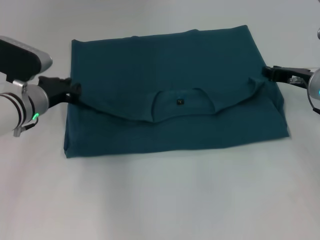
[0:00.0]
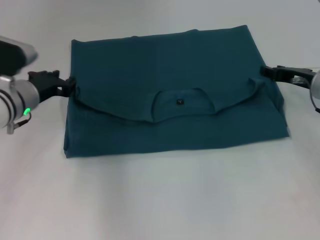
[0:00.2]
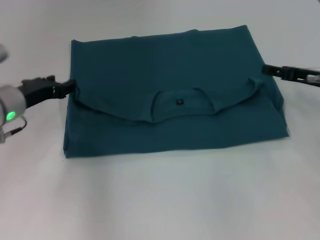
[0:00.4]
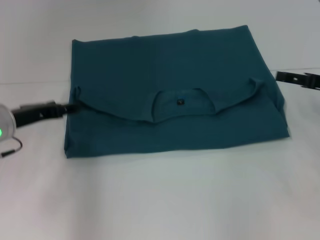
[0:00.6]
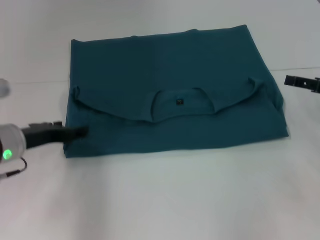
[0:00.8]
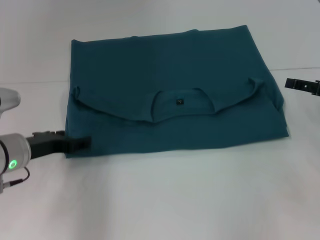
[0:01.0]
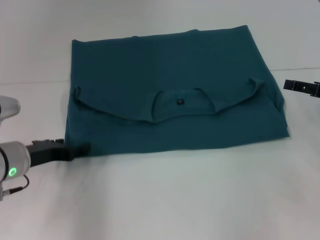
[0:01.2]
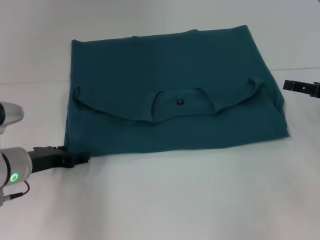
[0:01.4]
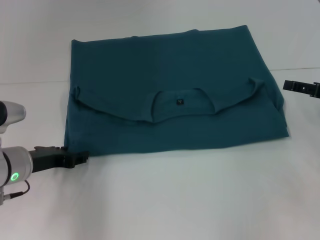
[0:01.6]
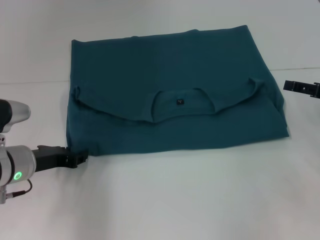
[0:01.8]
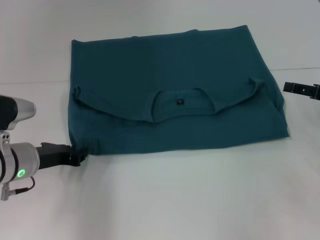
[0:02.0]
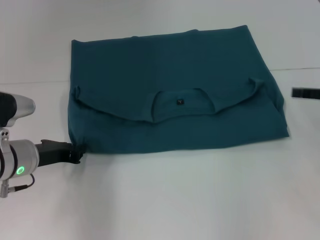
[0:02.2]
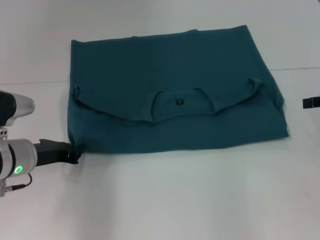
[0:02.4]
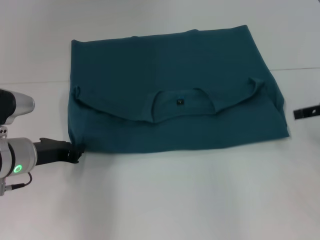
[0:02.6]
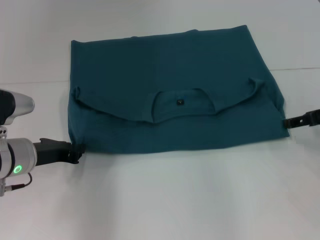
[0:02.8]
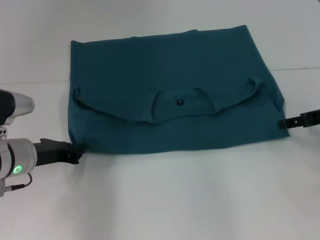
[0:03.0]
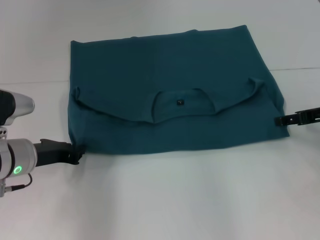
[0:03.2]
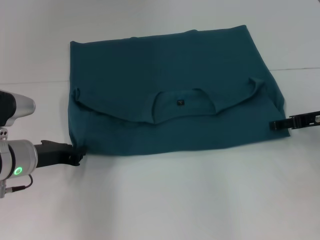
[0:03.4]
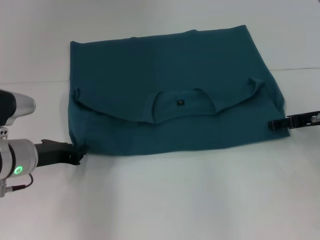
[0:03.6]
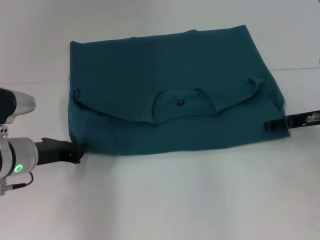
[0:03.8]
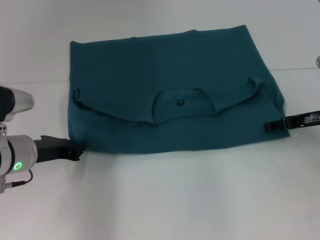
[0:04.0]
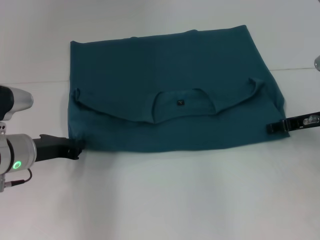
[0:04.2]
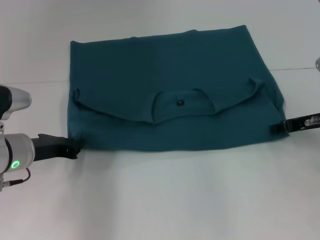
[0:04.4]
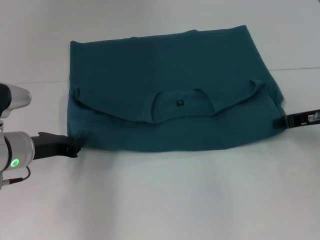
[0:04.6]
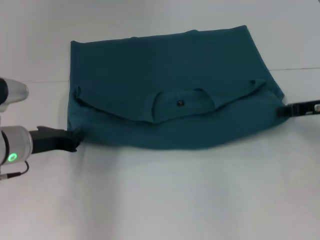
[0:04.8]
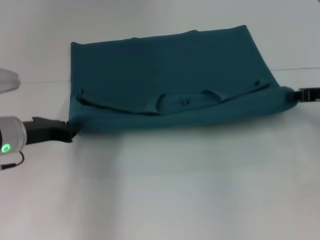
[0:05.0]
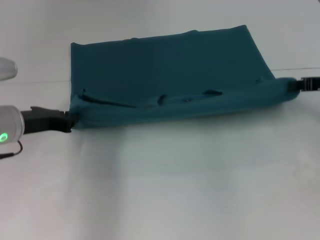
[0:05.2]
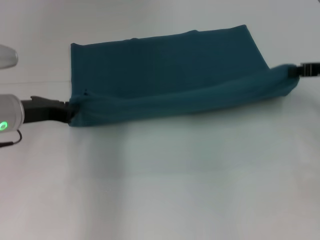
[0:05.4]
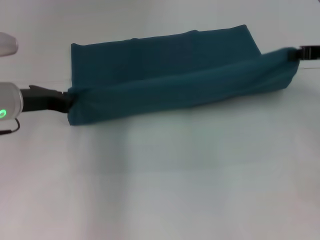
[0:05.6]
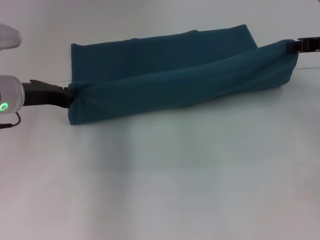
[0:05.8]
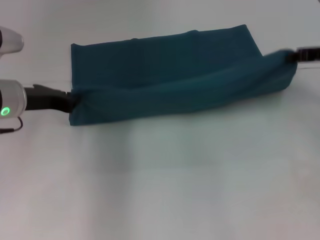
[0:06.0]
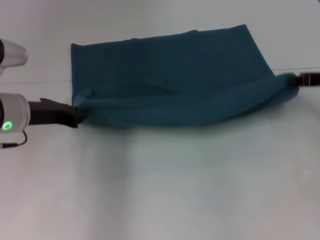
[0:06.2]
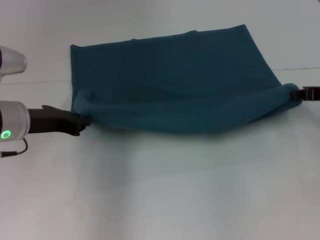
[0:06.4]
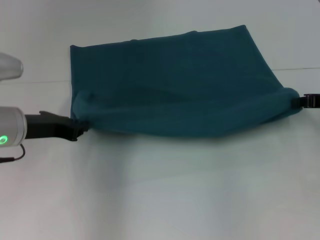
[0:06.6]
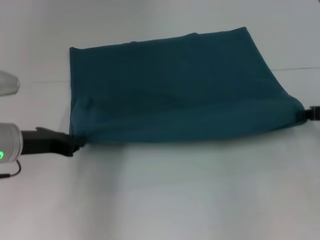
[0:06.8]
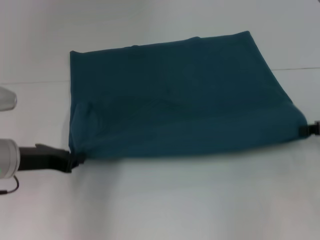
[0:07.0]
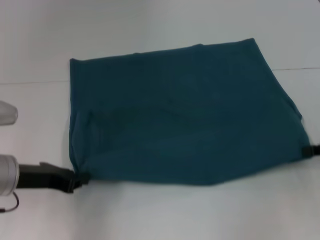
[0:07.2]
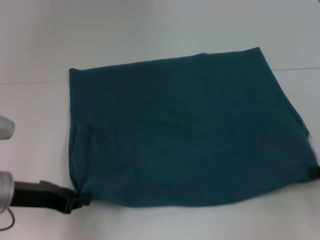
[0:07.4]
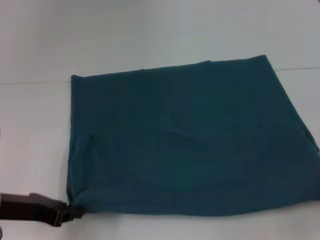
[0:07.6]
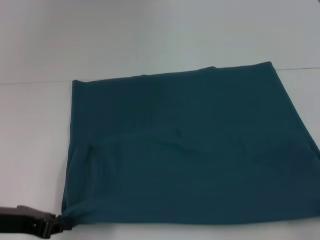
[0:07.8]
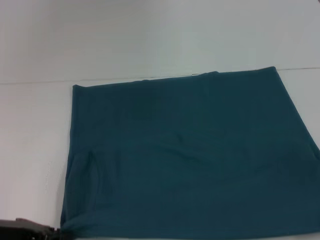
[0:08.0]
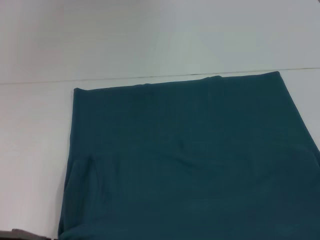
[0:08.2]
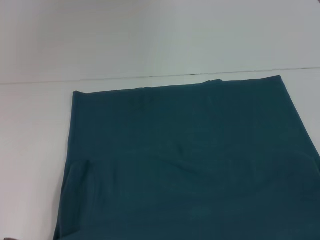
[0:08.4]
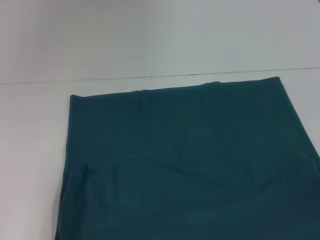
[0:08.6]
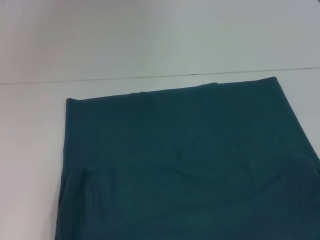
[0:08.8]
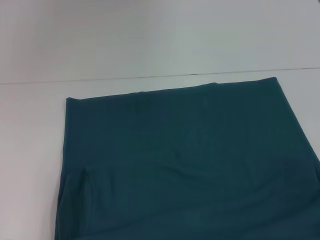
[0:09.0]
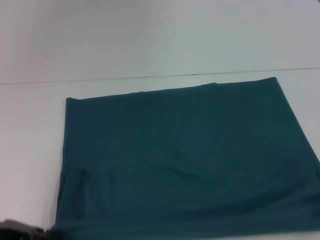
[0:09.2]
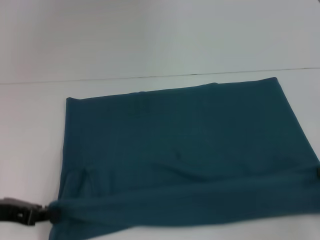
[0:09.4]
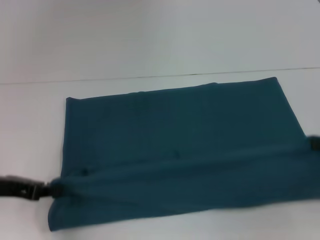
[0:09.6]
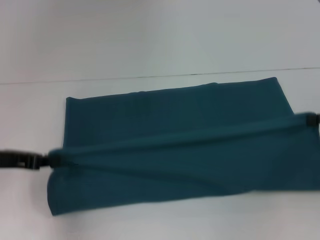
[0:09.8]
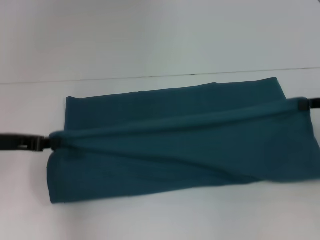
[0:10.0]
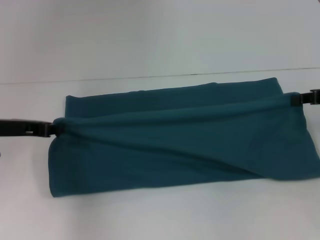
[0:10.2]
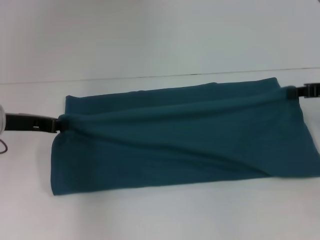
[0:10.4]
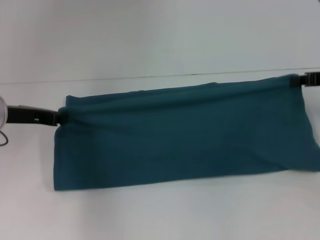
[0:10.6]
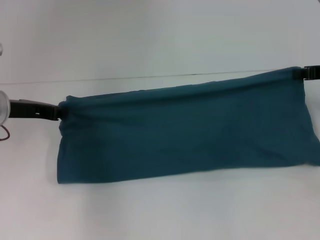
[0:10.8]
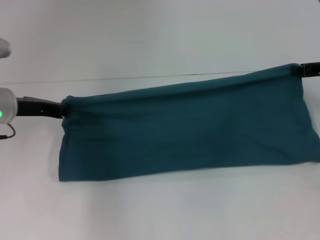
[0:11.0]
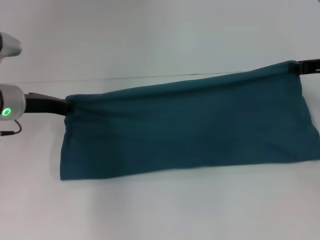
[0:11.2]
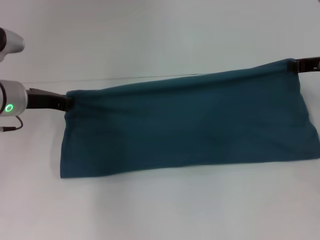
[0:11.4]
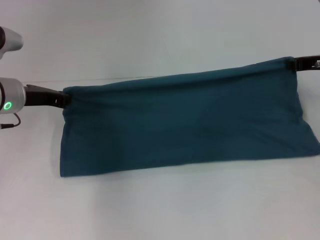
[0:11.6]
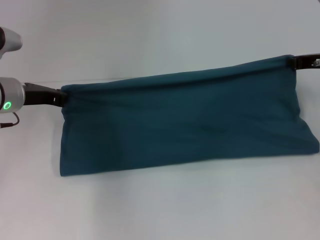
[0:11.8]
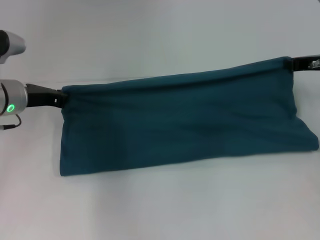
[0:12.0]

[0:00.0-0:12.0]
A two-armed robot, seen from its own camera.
Step, 0:00.2 to 0:08.8: Pull the clothes with your left hand.
Step, 0:00.2 to 0:08.8: Pull the clothes with your right hand.
0:00.0 to 0:01.6: The left gripper goes approximately 10 cm backward, and opens up. Meanwhile the right gripper is displaced backward and to the right by some 10 cm, and opens up.
0:01.6 to 0:03.0: The left gripper closes its fingers.
0:03.0 to 0:04.4: The right gripper closes up.
0:04.4 to 0:06.0: The grippers both shift upward by approximately 5 cm. The right gripper closes.
0:06.0 to 0:07.6: The right gripper travels backward and downward by approximately 20 cm. The left gripper is displaced backward by about 10 cm.
0:07.6 to 0:09.0: Both grippers move backward, roughly 5 cm.
0:09.0 to 0:10.4: The two grippers go approximately 15 cm forward.
0:10.4 to 0:12.0: The left gripper moves approximately 5 cm; the right gripper is displaced forward by some 5 cm.

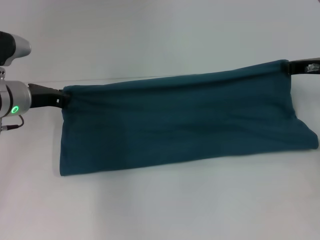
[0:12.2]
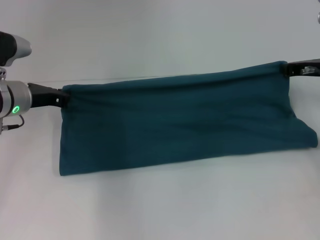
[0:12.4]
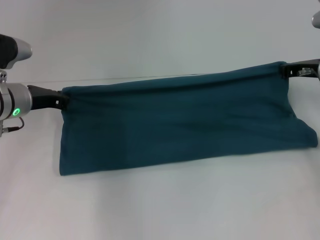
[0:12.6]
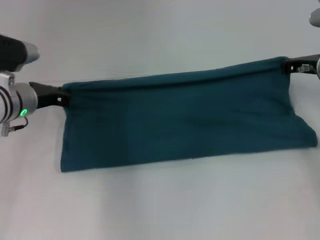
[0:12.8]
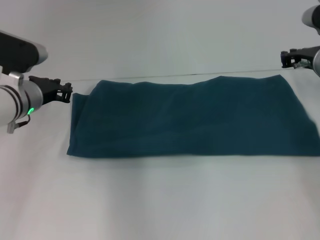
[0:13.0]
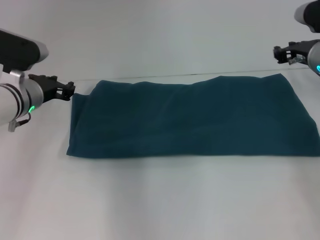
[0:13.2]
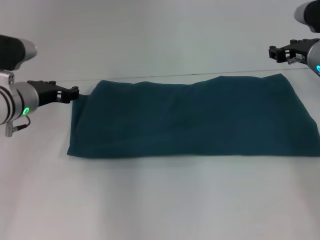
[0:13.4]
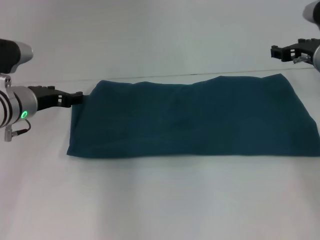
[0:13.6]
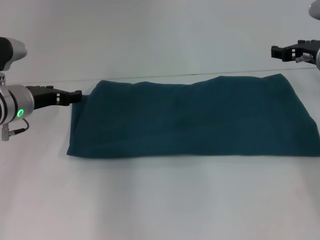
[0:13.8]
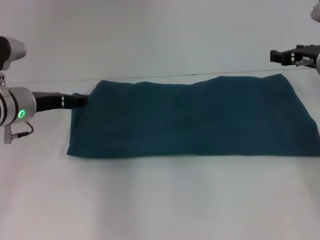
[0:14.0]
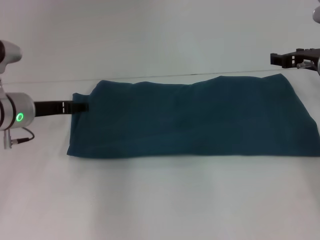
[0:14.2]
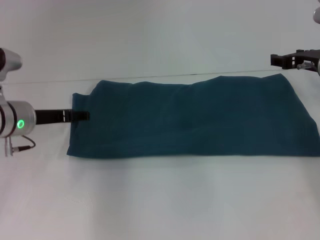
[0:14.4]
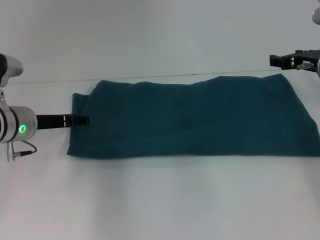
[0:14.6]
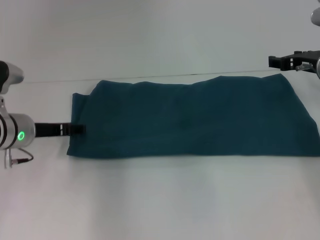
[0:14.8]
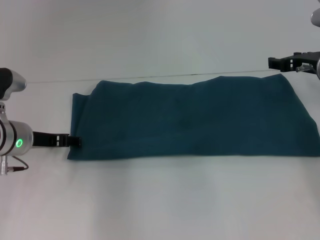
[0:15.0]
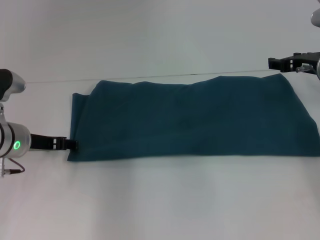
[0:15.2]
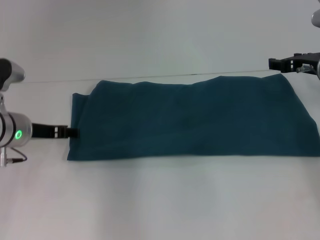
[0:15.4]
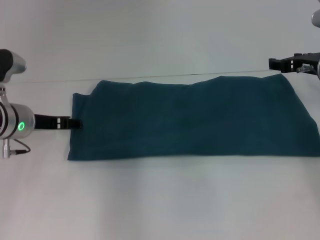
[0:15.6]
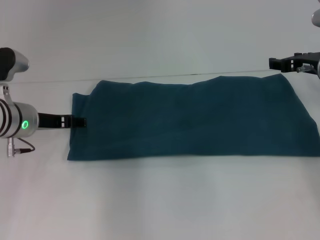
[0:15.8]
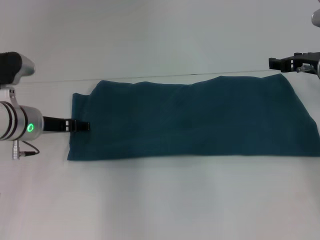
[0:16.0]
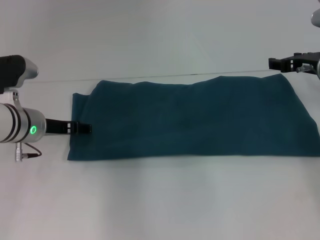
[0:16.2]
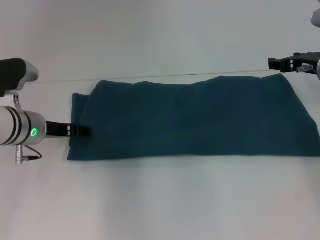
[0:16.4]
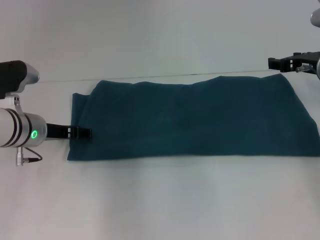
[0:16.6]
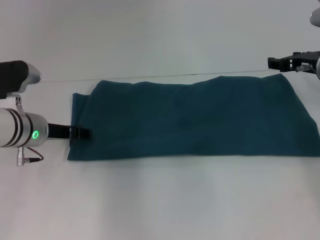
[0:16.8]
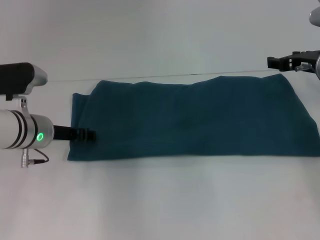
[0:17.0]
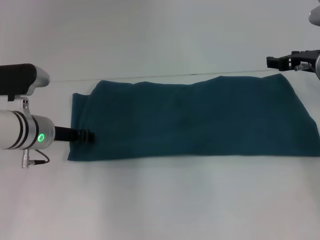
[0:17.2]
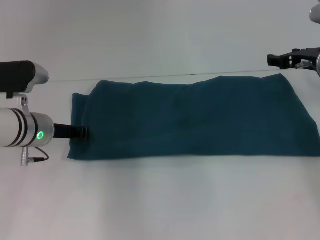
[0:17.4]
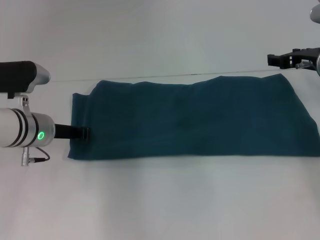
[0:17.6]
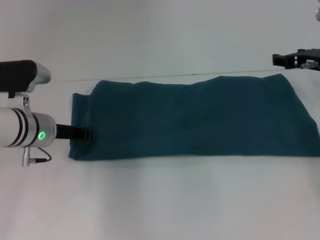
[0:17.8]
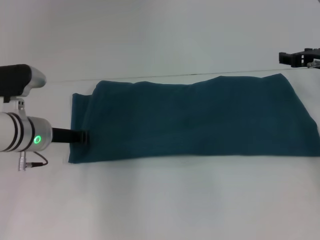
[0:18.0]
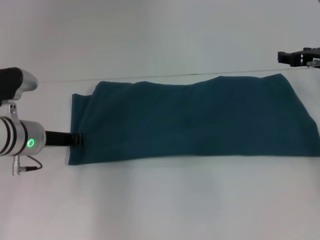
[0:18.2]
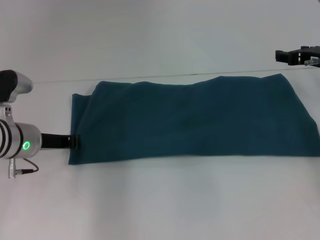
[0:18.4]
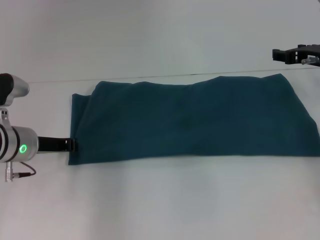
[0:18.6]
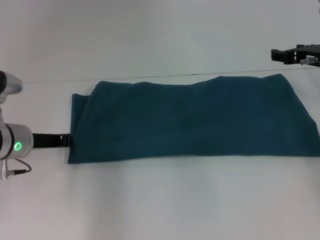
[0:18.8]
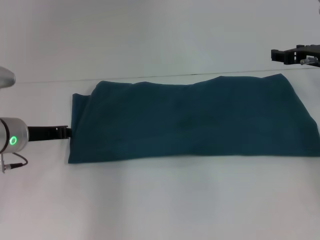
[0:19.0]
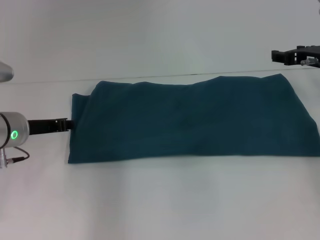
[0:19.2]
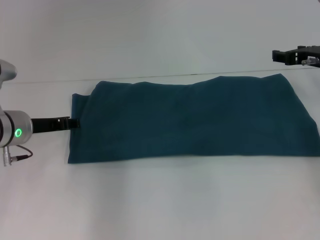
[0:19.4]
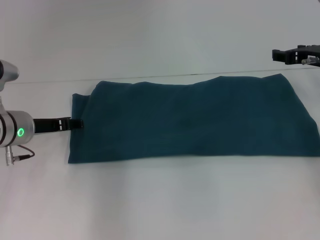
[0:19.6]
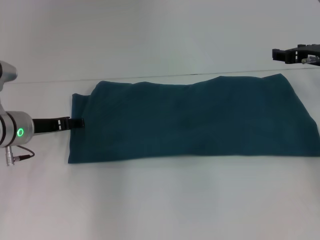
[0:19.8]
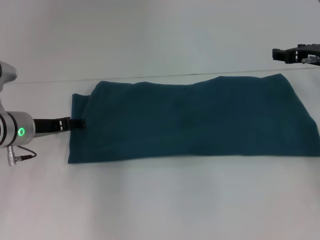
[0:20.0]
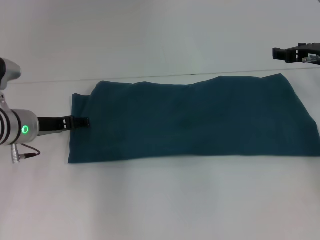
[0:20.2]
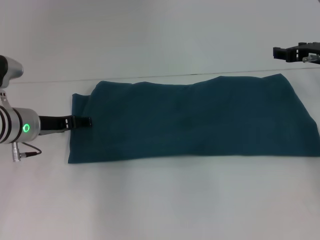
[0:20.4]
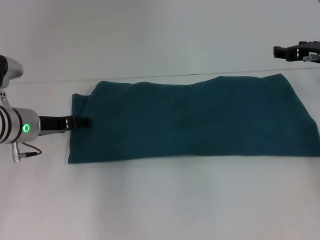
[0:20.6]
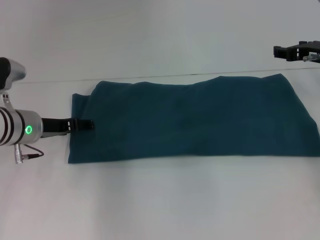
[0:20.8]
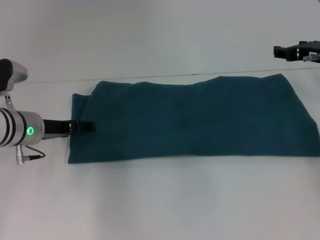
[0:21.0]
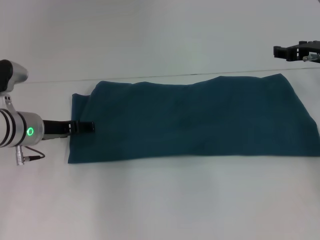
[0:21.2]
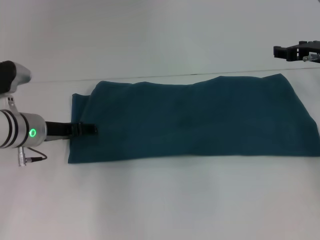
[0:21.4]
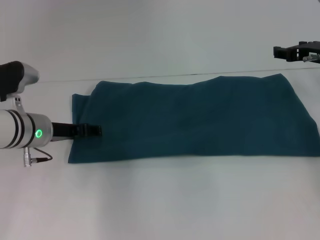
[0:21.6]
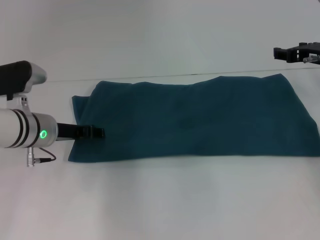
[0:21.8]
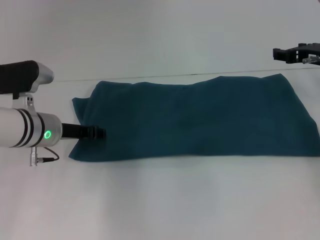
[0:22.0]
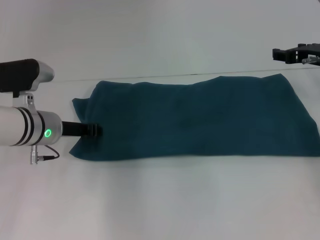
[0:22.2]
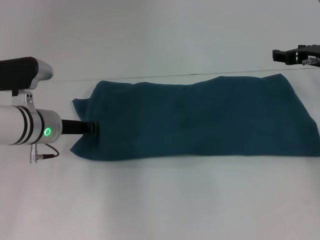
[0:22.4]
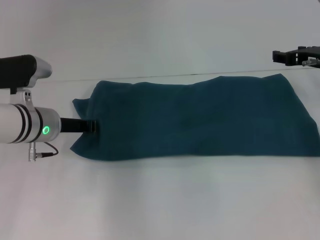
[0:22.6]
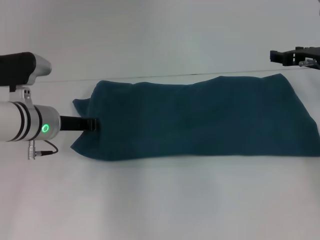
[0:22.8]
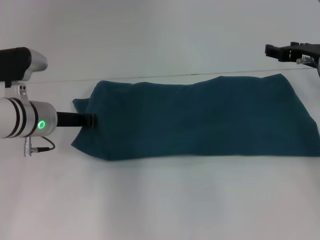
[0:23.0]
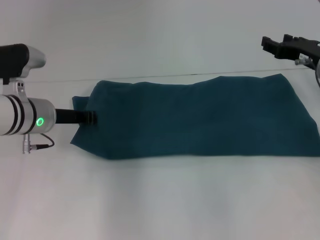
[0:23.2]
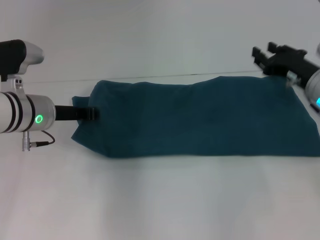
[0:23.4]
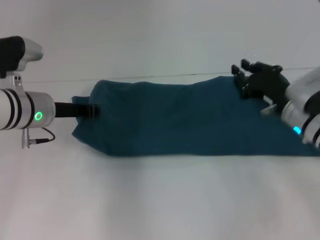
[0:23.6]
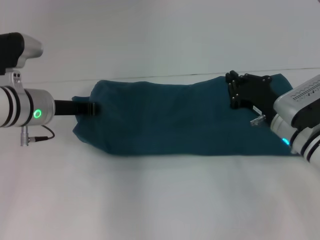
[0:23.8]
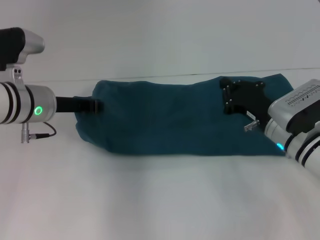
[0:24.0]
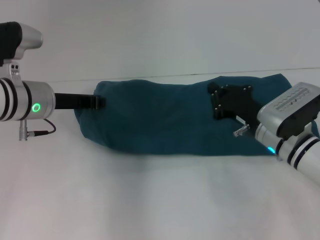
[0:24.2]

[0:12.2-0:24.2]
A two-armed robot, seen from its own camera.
0:12.2 to 0:13.8: The left gripper opens up. The right gripper opens.
0:15.2 to 0:16.6: The grippers stay close to where they were, moving slightly.
0:16.6 to 0:18.2: The left gripper closes.
0:18.2 to 0:19.8: The left gripper opens.
0:19.8 to 0:21.2: The grippers make only small movements.
0:21.2 to 0:22.6: The left gripper closes its fingers.
0:22.6 to 0:24.2: The left gripper shifts approximately 5 cm upward. Meanwhile the right gripper is displaced to the left, downward and backward by about 15 cm, and closes its fingers.
